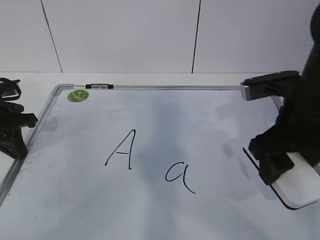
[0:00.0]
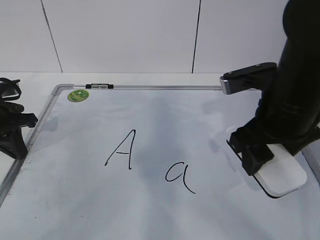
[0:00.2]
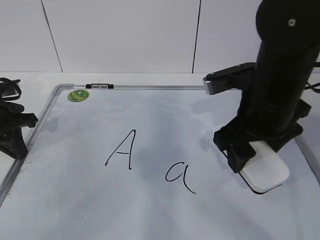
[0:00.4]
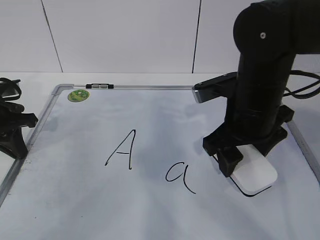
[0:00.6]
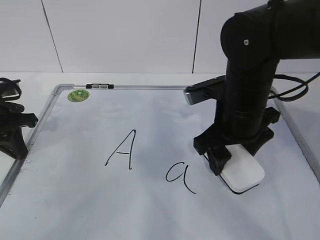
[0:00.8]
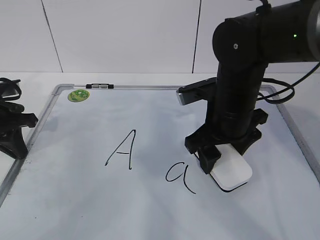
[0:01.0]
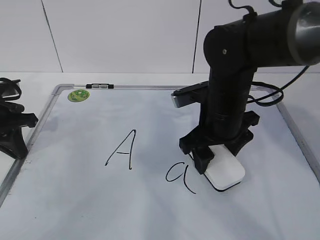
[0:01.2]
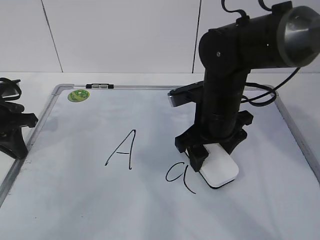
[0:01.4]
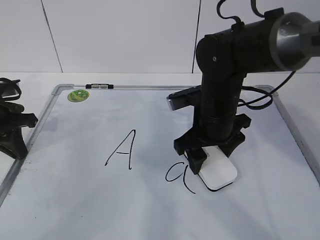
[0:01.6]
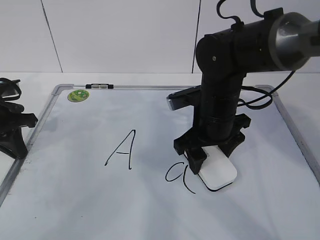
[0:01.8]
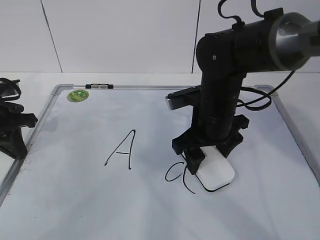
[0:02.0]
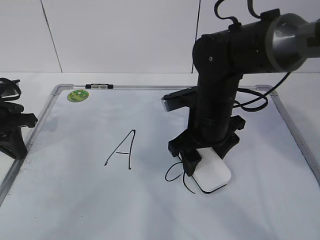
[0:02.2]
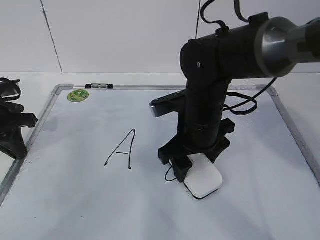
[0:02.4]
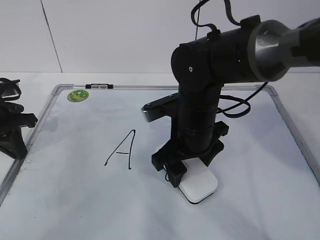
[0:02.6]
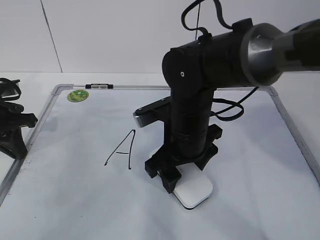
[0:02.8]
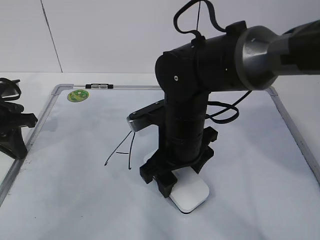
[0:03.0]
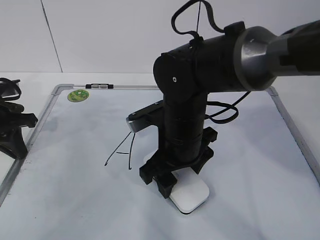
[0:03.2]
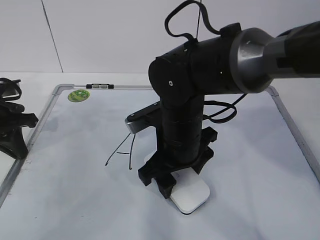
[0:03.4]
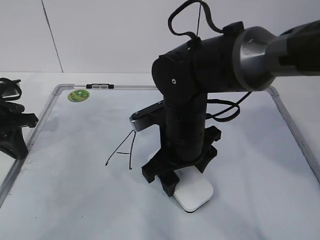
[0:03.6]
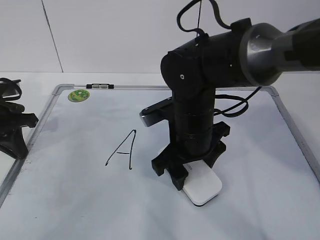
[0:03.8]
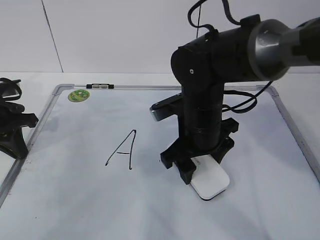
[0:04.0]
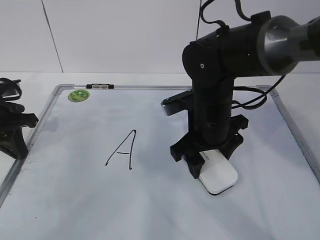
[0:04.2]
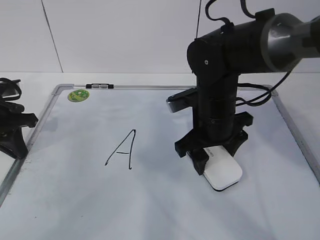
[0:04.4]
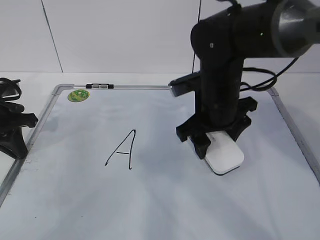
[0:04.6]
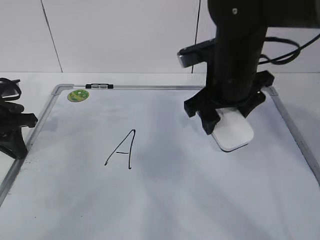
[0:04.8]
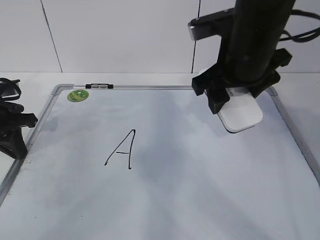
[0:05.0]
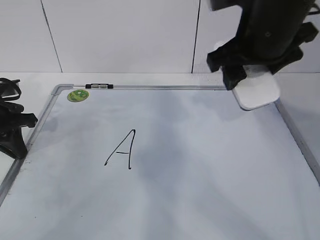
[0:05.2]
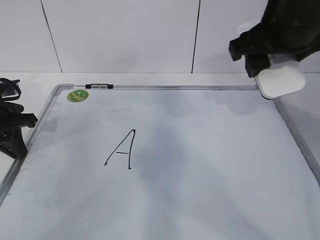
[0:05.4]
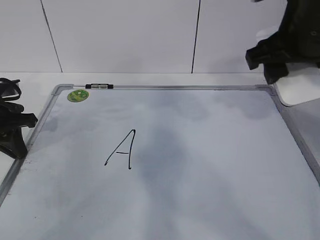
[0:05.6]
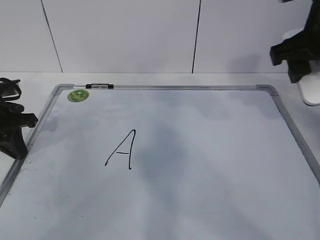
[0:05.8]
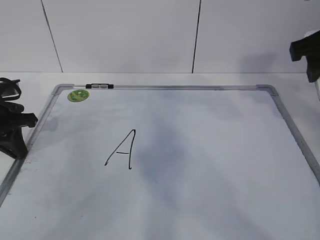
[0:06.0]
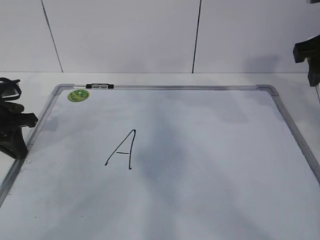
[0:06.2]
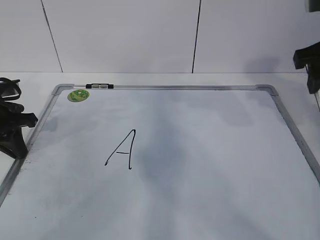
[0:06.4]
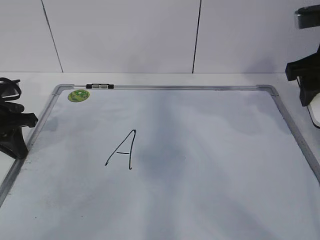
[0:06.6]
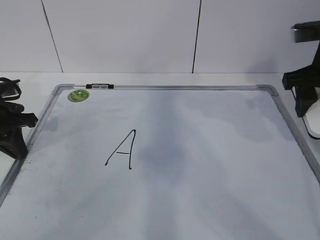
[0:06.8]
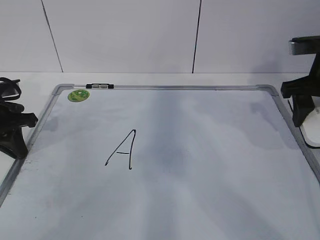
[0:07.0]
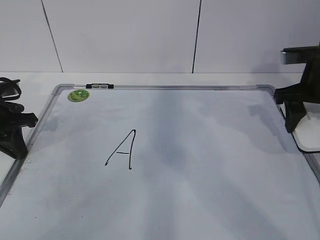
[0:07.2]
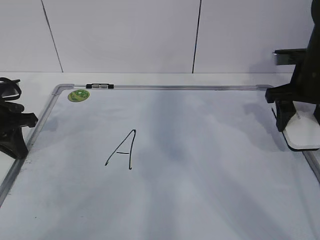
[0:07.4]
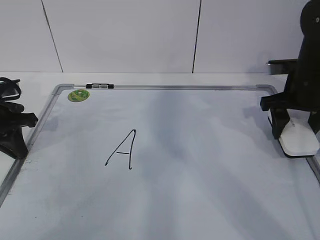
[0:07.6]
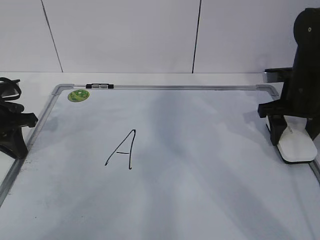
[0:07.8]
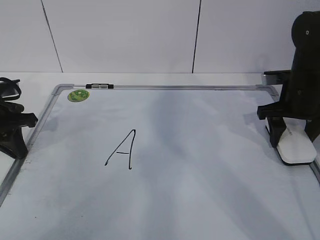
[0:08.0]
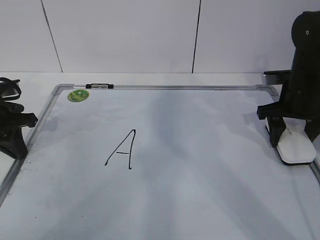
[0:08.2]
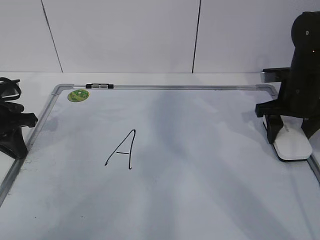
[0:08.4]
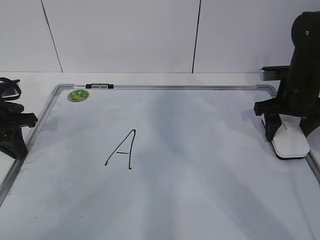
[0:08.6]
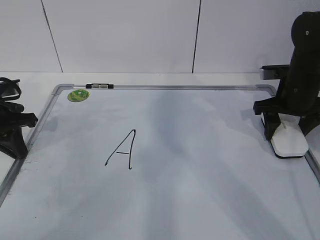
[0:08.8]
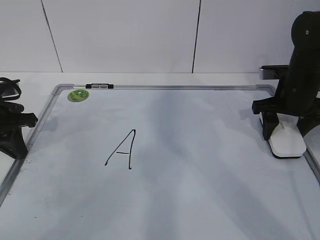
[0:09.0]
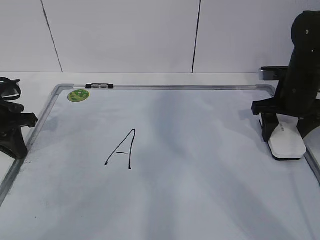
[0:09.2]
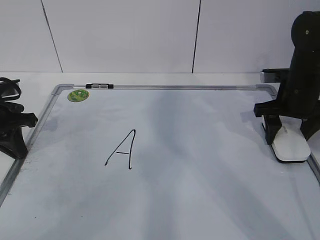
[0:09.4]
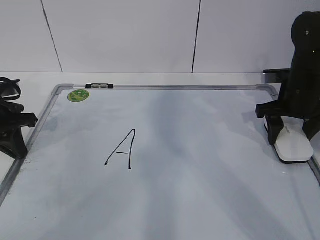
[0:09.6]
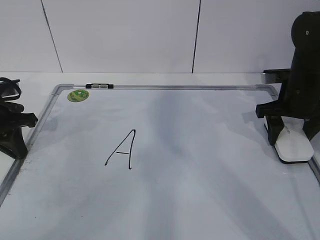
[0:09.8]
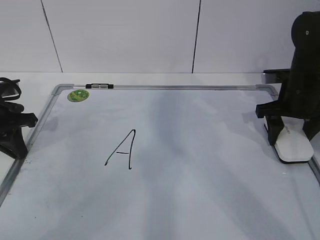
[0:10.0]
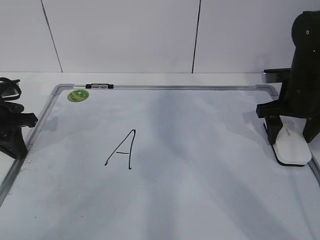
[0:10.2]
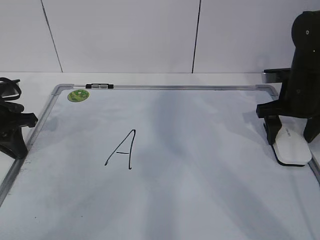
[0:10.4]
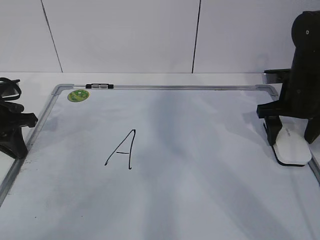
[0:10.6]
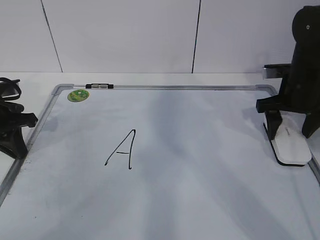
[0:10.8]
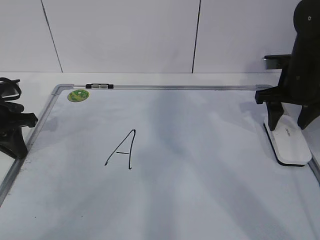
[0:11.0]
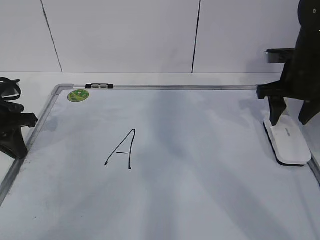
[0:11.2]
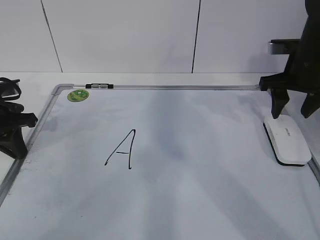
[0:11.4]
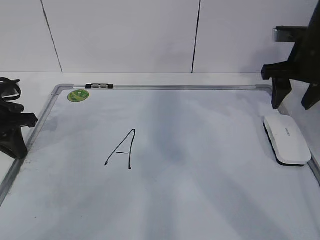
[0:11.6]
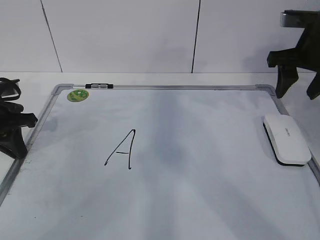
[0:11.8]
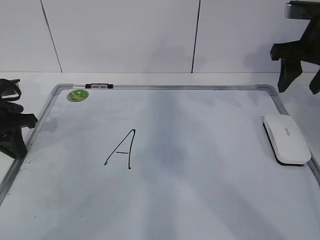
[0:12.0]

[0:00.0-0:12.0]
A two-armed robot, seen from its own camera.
Task of the whole recording: pick up the eraser on the blackboard and erase the letter "a".
Step, 0:00.8 to 0:05.8: Put down the eraser with your right hand.
0:00.0 to 0:01.6: The right gripper goes about 15 cm to the left, forward and downward.
0:01.6 to 0:03.0: The right gripper heads to the left, covering approximately 5 cm.
0:03.0 to 0:04.4: The right gripper goes roughly 5 cm to the right.
0:04.4 to 0:06.0: The right gripper travels upward and to the right by some 20 cm.
0:06.0 to 0:07.6: The right gripper moves downward and forward, about 15 cm.
0:07.6 to 0:09.0: The grippers make only small movements.
0:09.0 to 0:10.4: The right gripper opens.
0:10.4 to 0:12.0: The right gripper heads upward, covering about 10 cm, and closes.

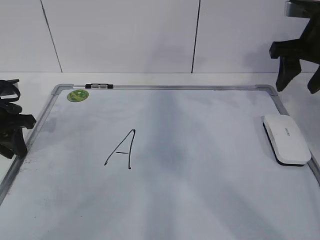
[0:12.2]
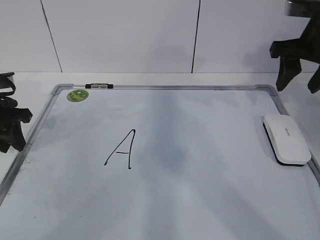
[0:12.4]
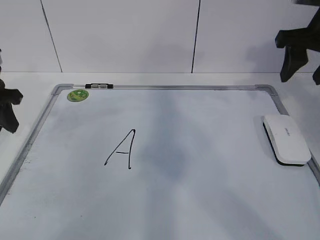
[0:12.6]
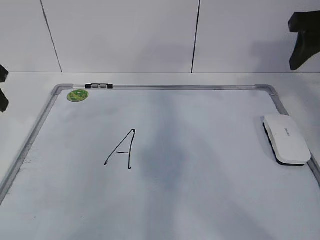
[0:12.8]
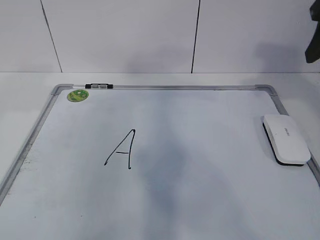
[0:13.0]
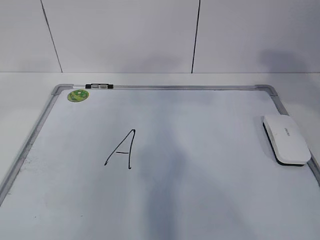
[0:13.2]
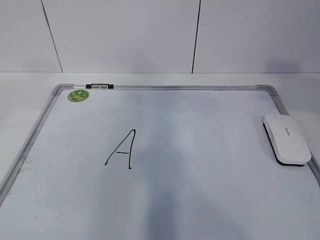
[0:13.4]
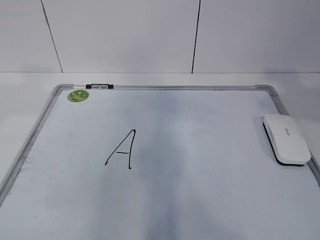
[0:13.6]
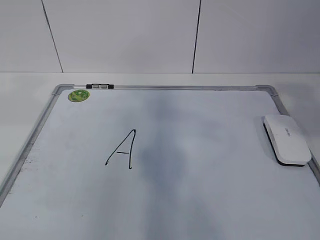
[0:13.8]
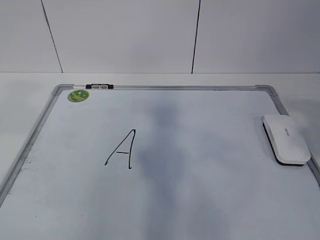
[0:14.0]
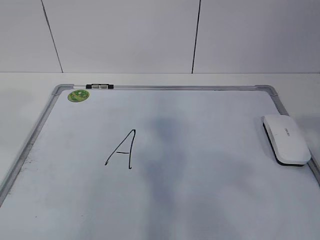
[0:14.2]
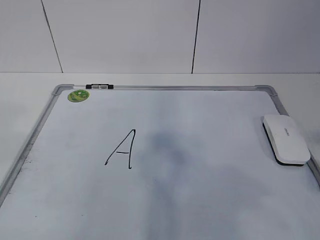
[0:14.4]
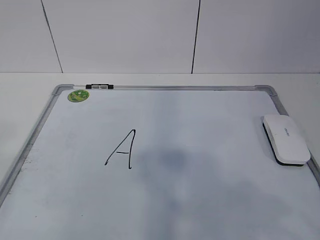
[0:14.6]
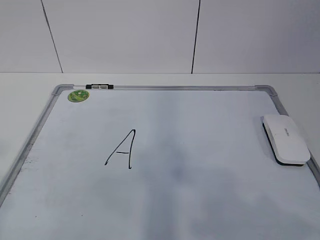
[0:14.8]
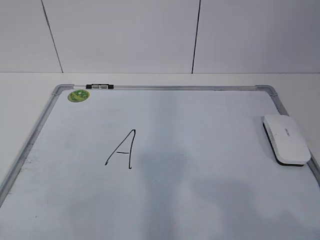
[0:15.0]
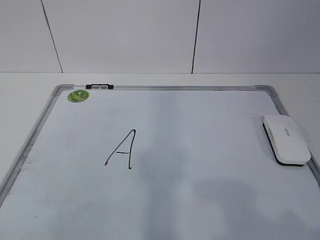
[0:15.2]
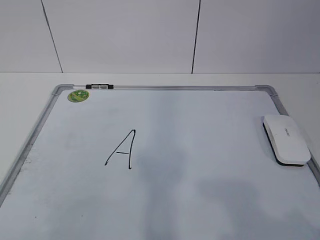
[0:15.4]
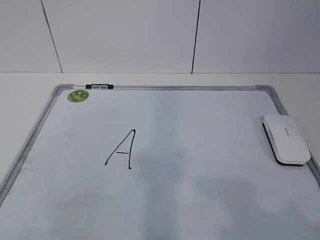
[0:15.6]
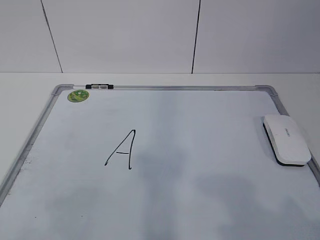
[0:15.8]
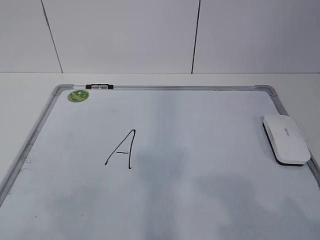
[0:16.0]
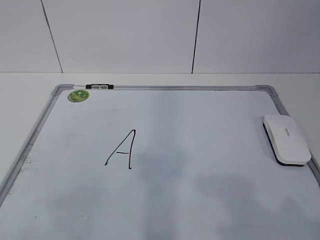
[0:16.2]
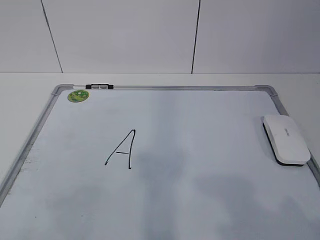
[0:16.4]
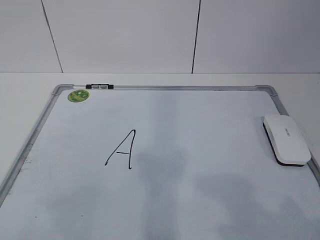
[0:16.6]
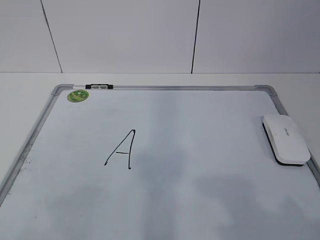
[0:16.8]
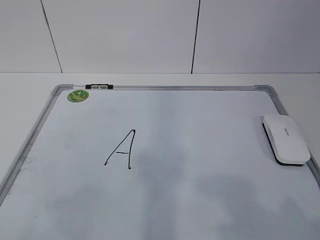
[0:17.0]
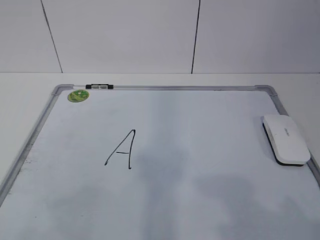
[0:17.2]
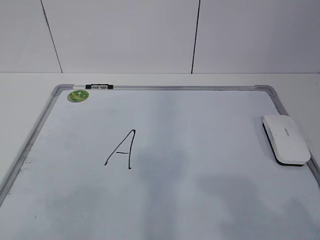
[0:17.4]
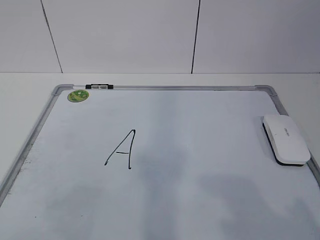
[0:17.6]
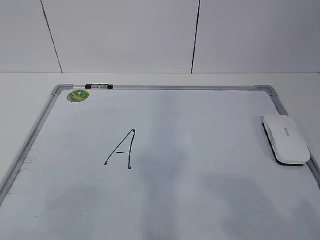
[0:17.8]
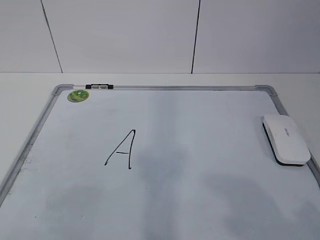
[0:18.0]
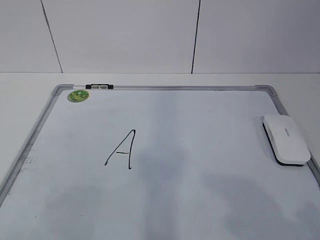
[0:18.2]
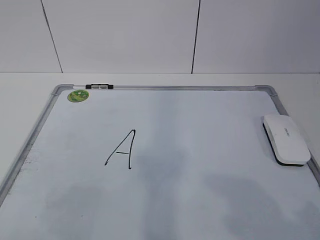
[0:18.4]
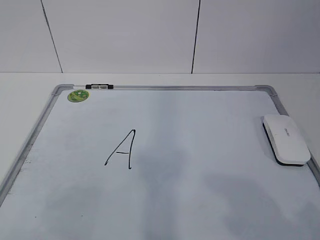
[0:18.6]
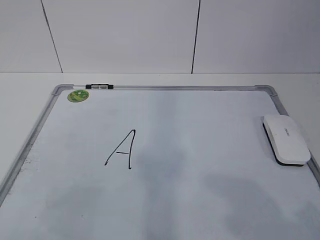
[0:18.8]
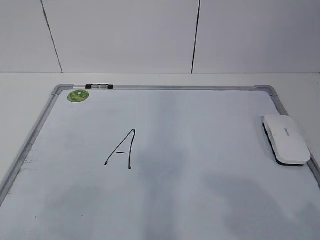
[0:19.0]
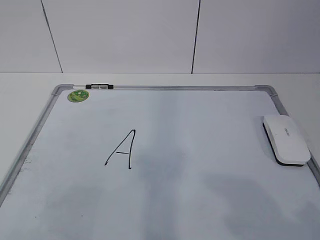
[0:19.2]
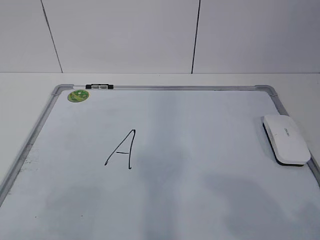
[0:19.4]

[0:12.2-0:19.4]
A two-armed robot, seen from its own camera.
Task of the whole recording: pick up the eraser on the blackboard and erase the letter "a".
0:12.2 to 0:13.6: The right gripper heads backward and upward, covering approximately 25 cm, while the left gripper moves upward and backward, some 30 cm.
0:13.6 to 0:15.0: The right gripper moves backward and downward, roughly 20 cm.
0:18.0 to 0:19.4: Neither gripper changes place.
